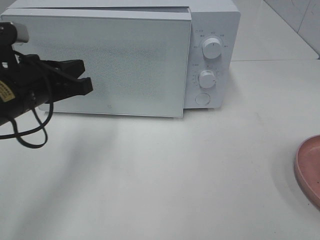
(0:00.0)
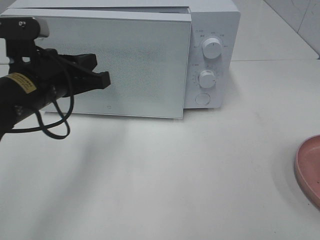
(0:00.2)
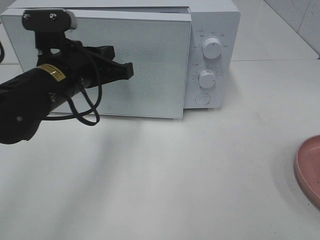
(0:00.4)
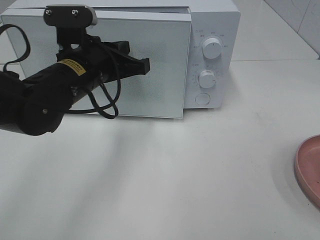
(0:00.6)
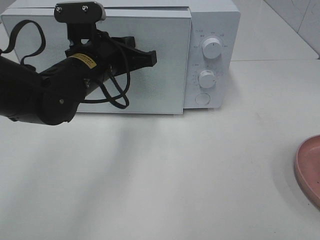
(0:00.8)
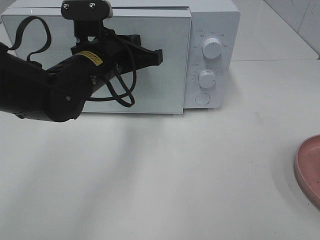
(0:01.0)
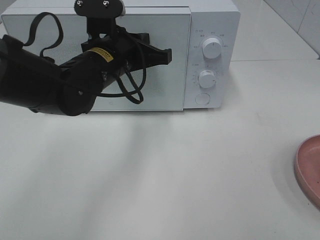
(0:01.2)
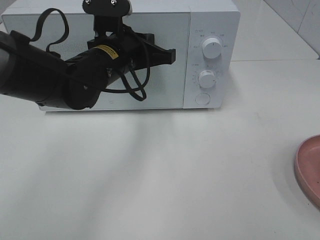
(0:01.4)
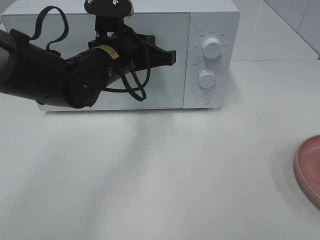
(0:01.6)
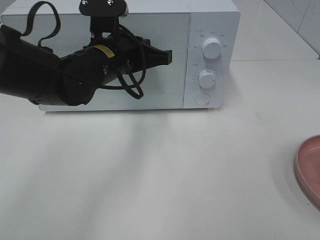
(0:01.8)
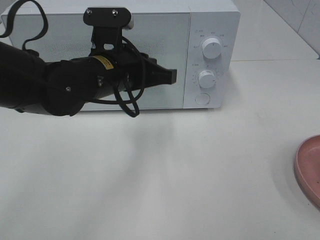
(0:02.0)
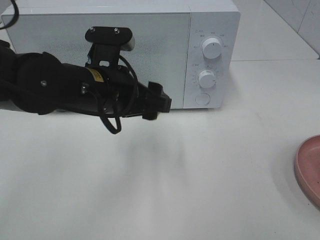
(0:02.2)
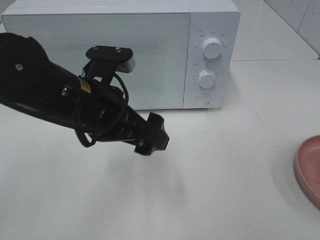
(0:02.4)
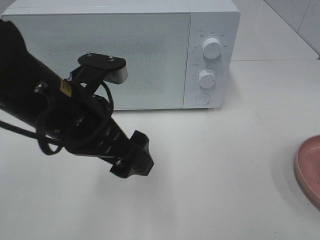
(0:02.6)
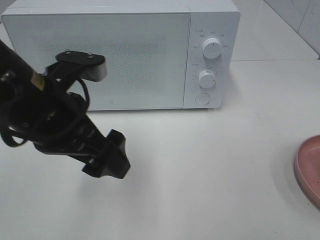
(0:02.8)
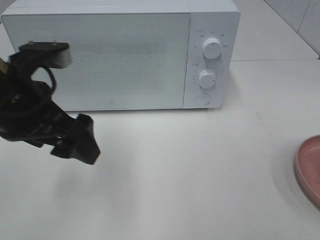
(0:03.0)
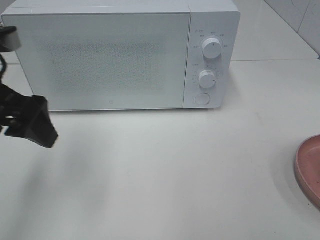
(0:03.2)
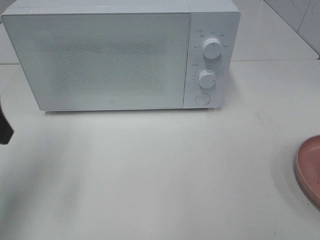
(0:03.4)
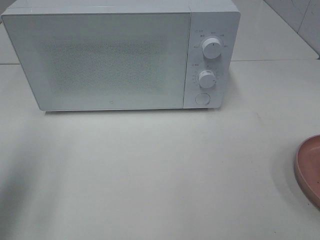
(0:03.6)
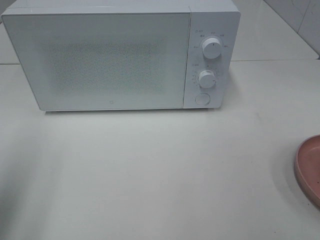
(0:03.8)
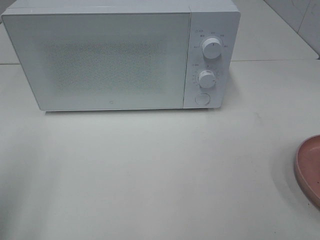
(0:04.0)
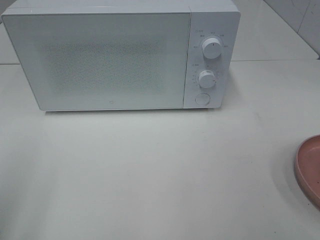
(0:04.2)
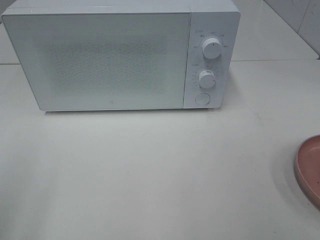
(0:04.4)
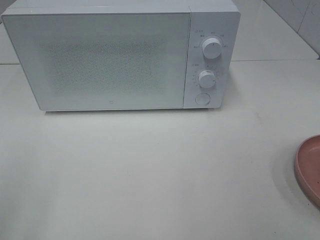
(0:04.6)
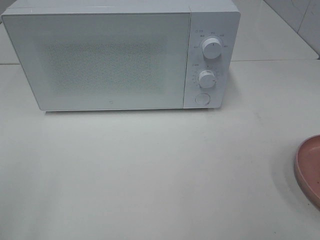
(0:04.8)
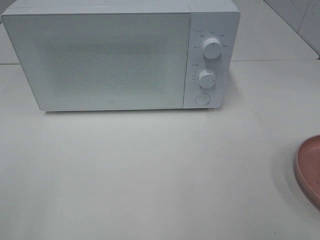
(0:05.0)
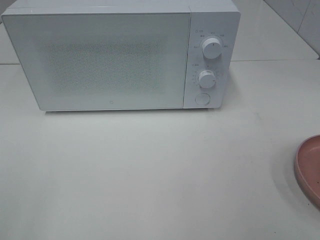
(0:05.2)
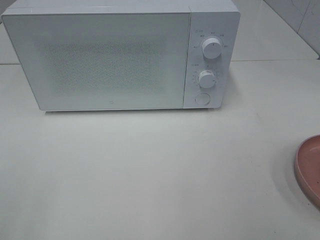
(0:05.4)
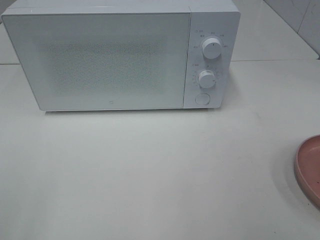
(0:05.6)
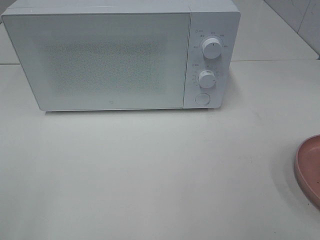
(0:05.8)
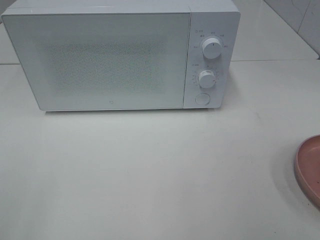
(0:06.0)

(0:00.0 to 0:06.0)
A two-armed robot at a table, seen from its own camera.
Task of the whole recording: Heat the burger.
0:00.0 - 0:01.6: The left gripper moves to the right and forward, about 15 cm.
0:01.6 - 0:03.0: The left gripper heads backward, to the left and upward, covering roughly 15 cm, and opens up.
0:03.0 - 0:04.4: The left gripper shifts approximately 20 cm backward and to the left.

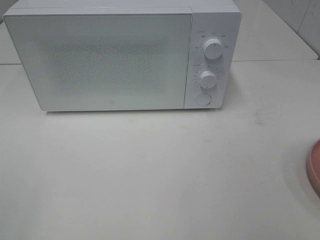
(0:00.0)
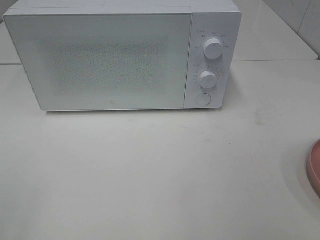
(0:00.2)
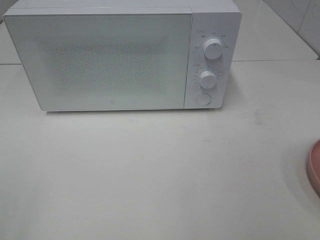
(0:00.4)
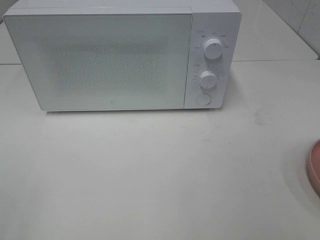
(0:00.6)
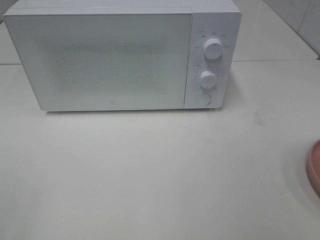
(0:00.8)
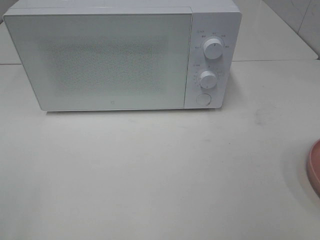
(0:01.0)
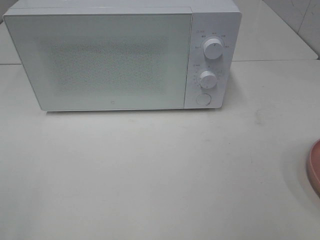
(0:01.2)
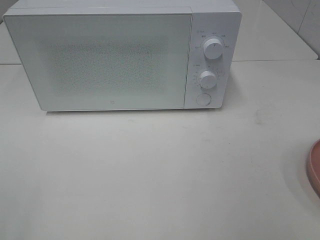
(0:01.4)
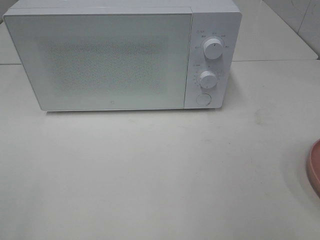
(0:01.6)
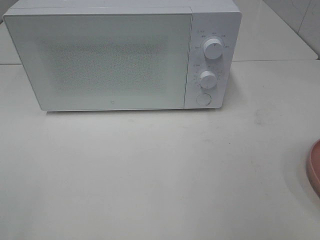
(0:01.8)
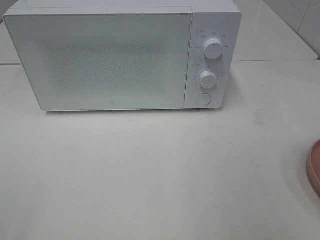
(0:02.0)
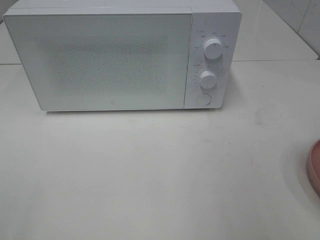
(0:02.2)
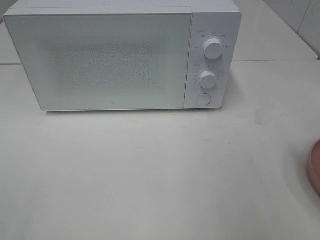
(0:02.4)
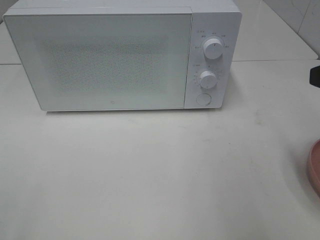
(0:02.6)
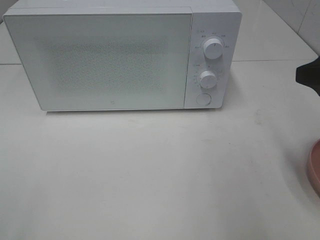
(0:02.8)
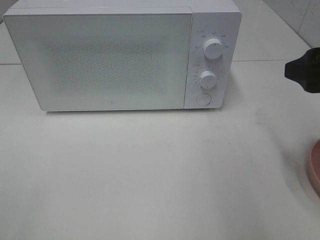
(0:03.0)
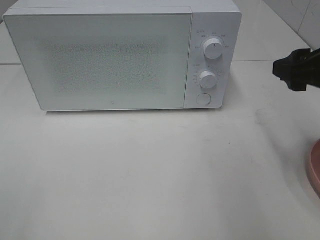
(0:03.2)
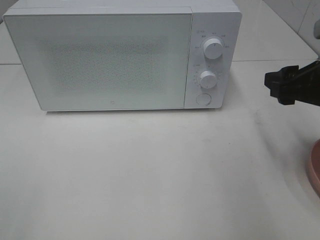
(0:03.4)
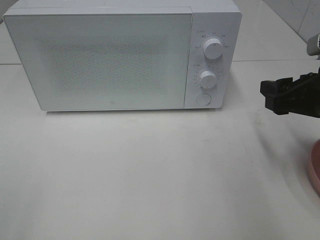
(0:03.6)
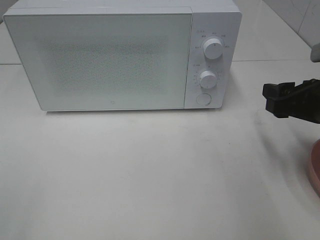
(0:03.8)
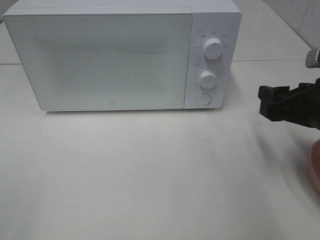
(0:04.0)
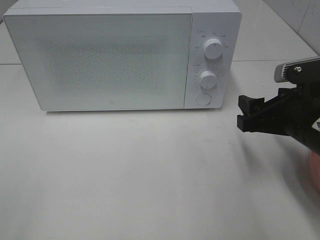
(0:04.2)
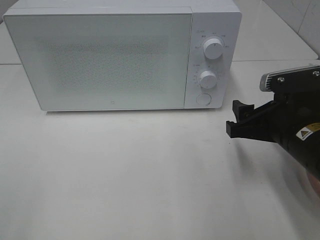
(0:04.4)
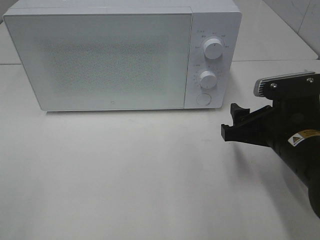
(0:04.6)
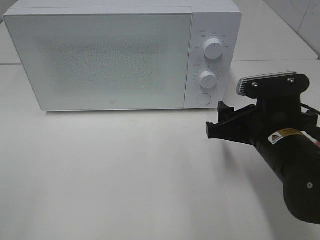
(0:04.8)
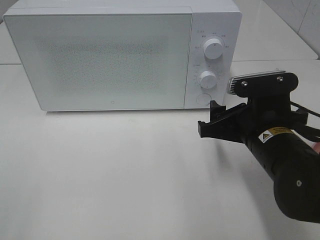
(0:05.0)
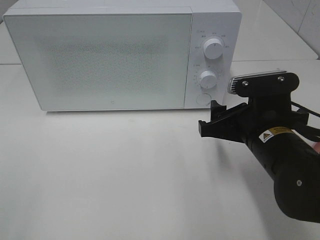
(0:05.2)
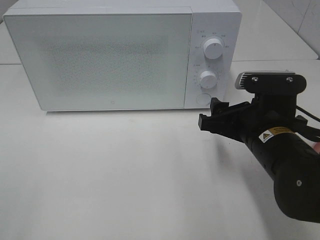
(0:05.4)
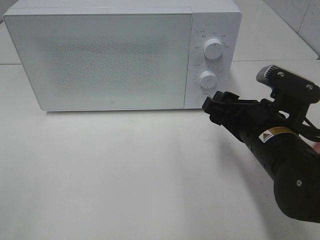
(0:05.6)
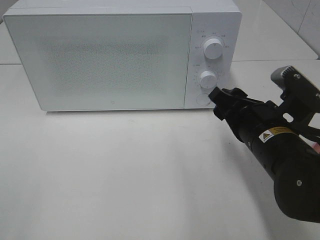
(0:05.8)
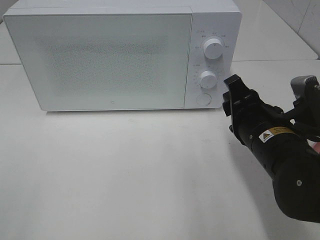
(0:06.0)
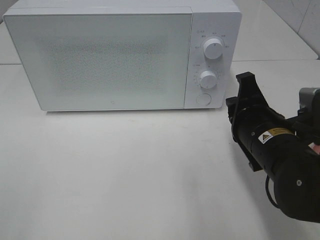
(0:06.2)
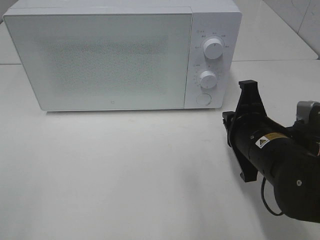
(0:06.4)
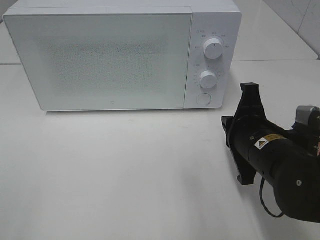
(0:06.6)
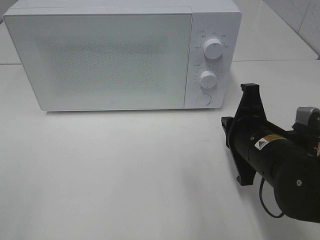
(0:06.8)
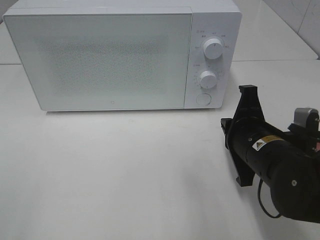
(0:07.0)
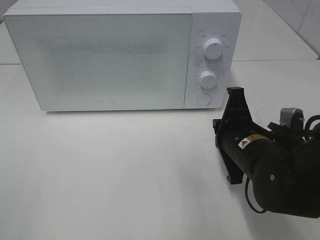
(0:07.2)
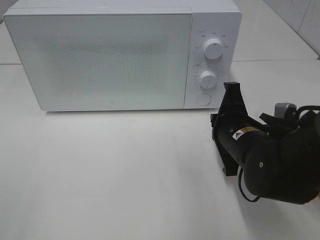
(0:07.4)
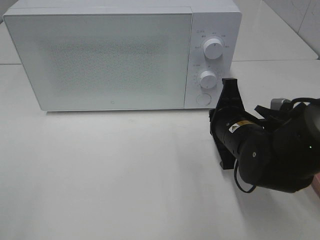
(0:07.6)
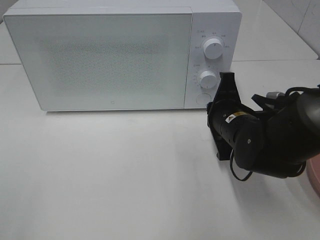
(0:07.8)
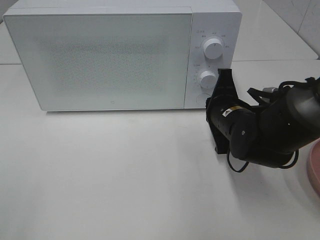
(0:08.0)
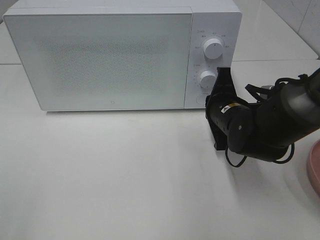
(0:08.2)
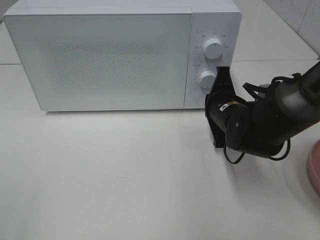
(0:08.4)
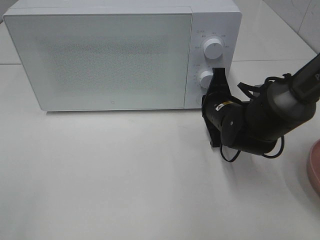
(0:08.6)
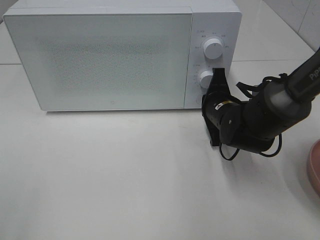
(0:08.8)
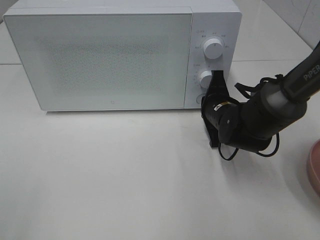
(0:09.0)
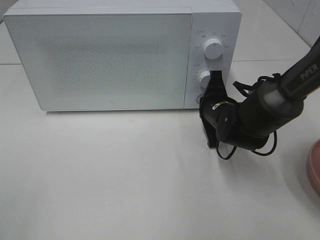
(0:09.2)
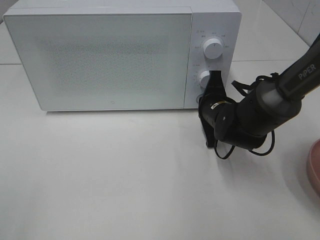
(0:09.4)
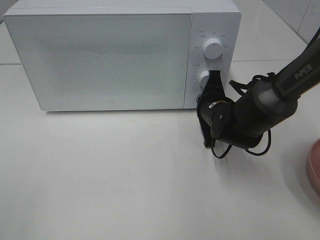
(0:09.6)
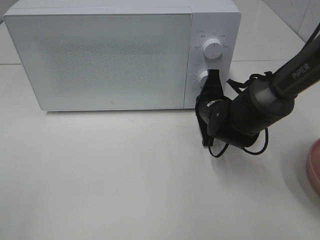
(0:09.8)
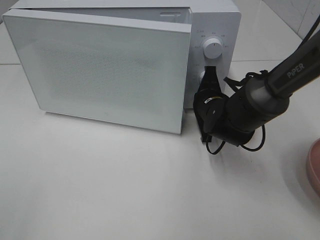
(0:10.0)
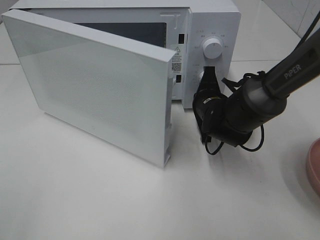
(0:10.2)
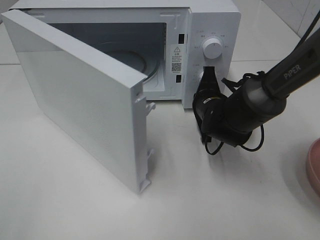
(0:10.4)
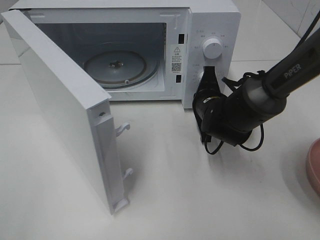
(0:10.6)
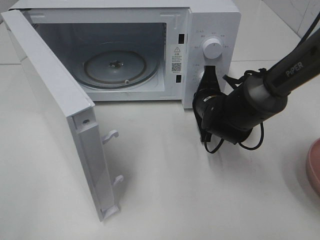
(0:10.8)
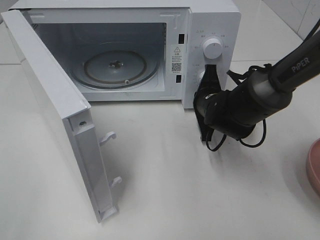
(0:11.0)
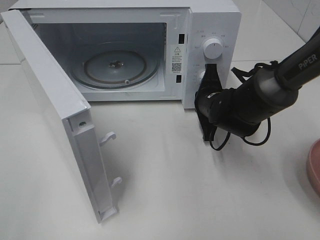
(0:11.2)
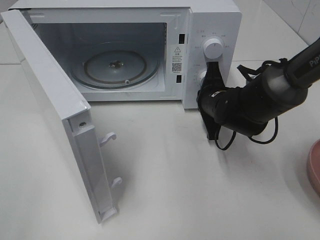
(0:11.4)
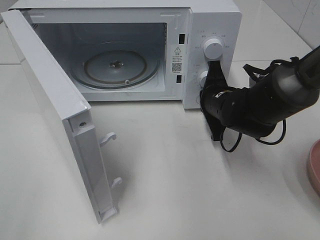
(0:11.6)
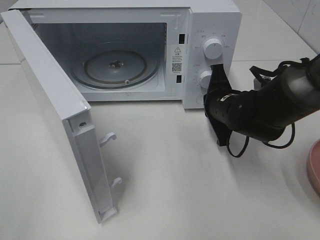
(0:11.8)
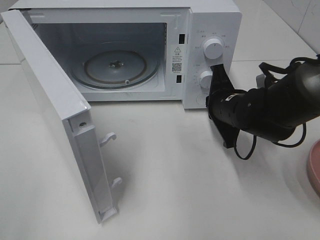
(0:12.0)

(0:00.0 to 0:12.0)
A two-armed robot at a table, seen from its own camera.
Task of the whole recording: Heat the burger.
Step, 0:00.0 - 0:11.8: Right hand: press the switch.
0:01.6 - 0:03.0: The right gripper goes roughly 15 cm forward.
0:03.0 - 0:04.4: The right gripper heads downward and to the left, covering some 15 cm.
0:06.0 - 0:07.6: The right gripper shifts by roughly 5 cm, and closes.
0:07.6 - 0:09.0: The right gripper shifts roughly 10 cm forward.
0:10.4 - 0:12.0: The right gripper changes place by approximately 5 cm.

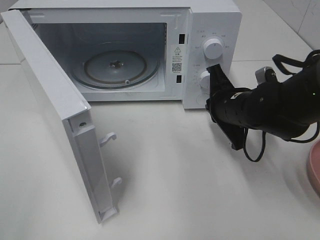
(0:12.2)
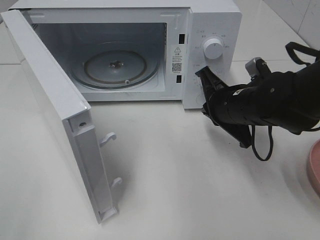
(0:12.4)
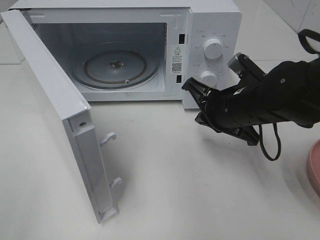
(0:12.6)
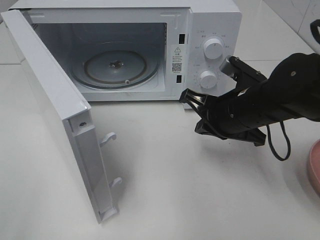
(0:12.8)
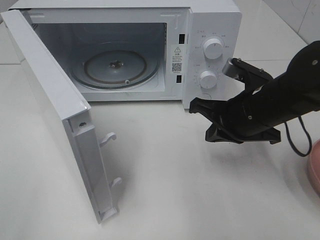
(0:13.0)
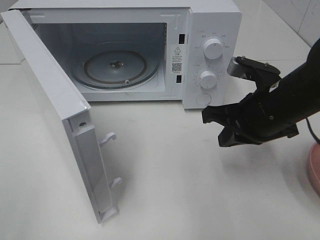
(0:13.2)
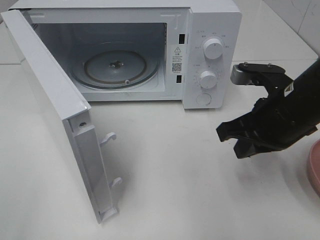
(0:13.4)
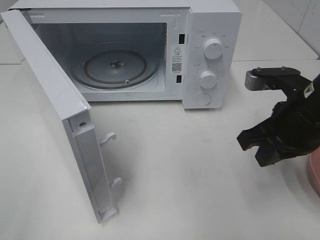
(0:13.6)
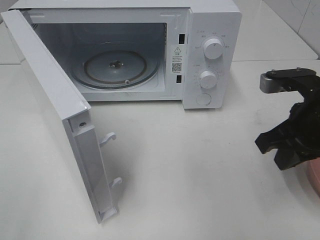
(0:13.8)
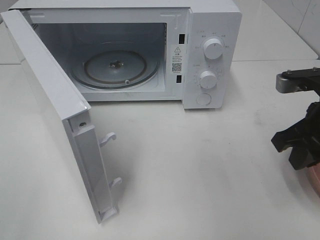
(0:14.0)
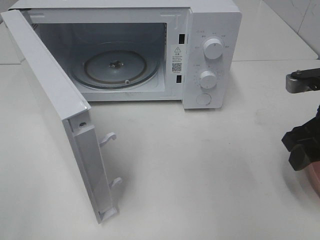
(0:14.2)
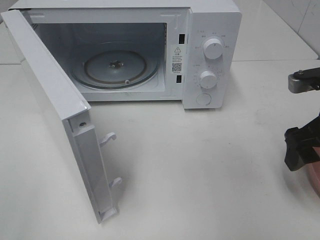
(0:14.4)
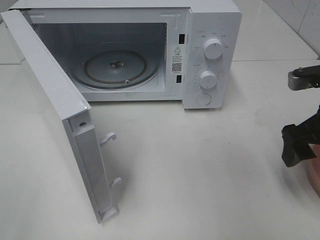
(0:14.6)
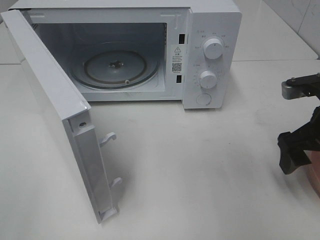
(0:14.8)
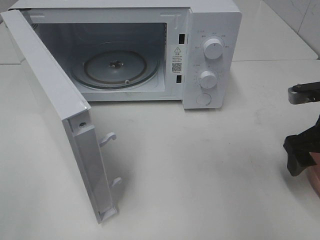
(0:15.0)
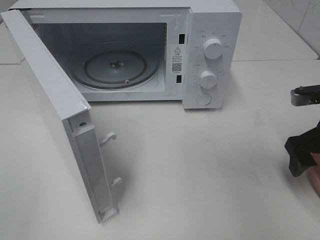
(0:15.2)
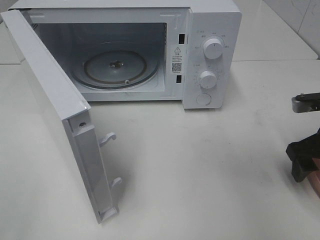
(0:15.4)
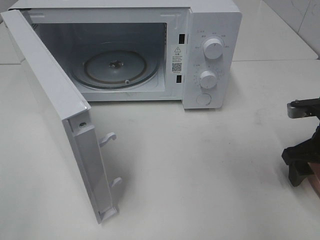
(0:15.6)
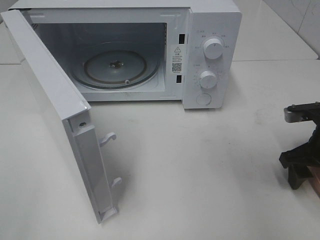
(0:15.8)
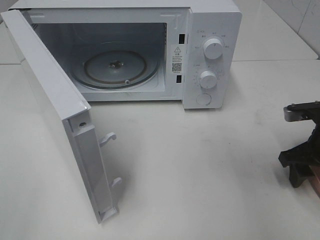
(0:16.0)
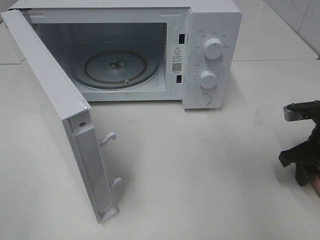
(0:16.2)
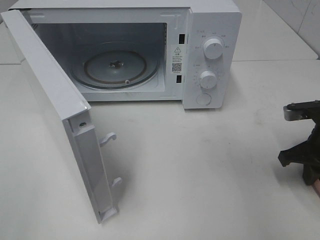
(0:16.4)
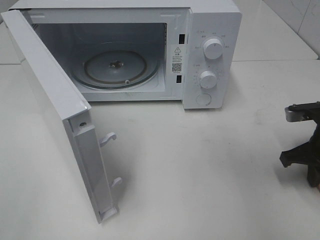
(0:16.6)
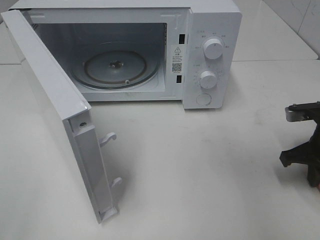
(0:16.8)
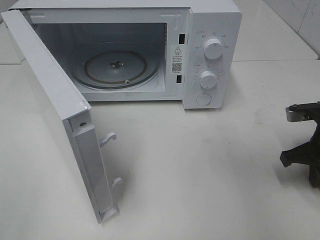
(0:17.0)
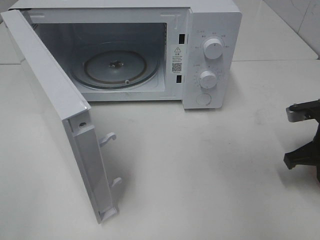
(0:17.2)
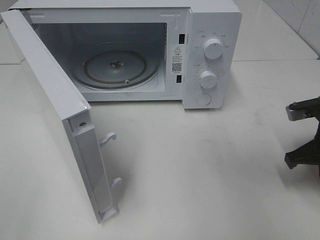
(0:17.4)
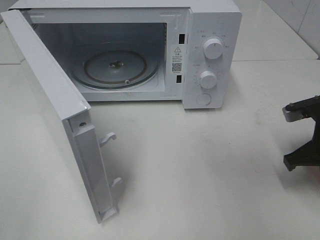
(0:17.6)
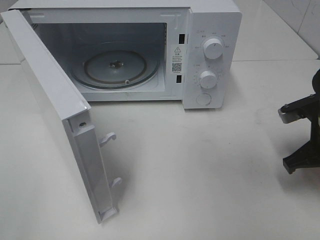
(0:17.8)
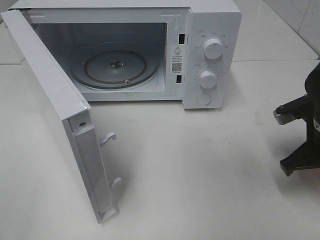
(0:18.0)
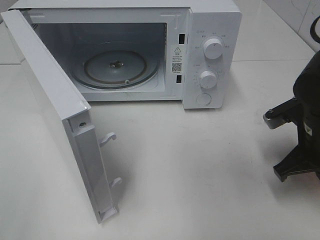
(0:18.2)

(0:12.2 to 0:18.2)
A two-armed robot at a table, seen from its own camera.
Task of the whole recording: Heat the burger.
Step, 0:12.2 - 0:17.0: Right hand: grab the plate with the hamburger.
0:12.2 - 0:13.8: The right gripper travels backward, to the right and upward by roughly 15 cm.
0:13.8 - 0:15.2: The right gripper travels to the right by some 5 cm, and opens its fingers.
0:15.2 - 0:16.6: The right gripper closes.
0:16.6 - 0:18.2: The right gripper goes some 5 cm to the left.
